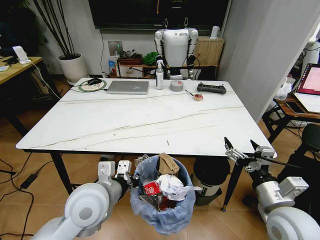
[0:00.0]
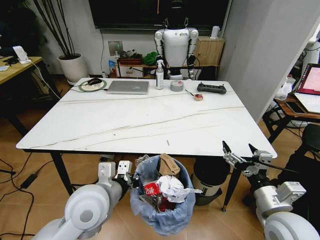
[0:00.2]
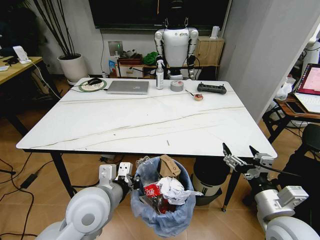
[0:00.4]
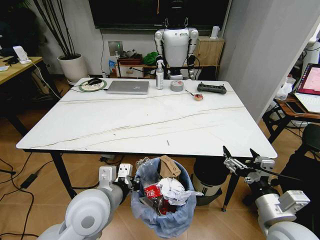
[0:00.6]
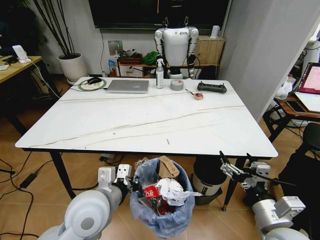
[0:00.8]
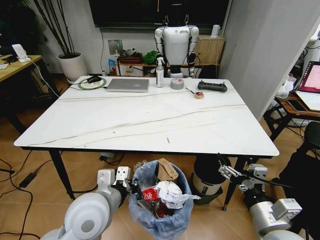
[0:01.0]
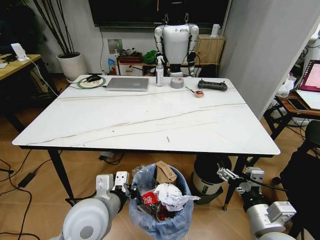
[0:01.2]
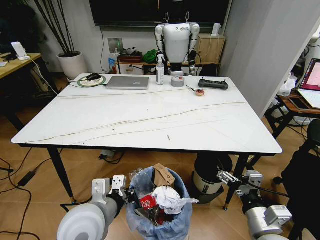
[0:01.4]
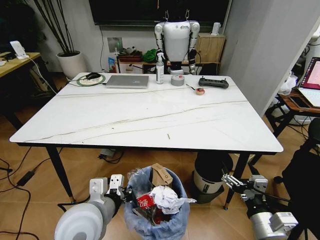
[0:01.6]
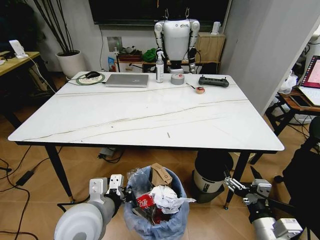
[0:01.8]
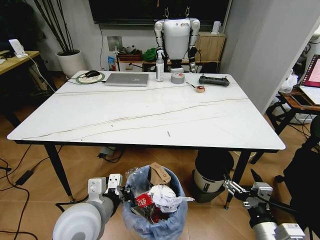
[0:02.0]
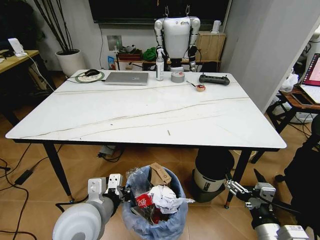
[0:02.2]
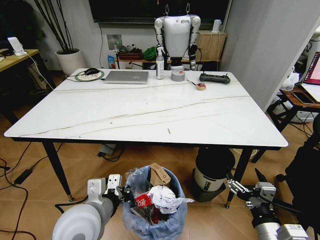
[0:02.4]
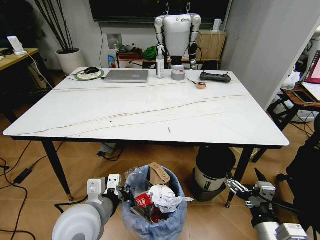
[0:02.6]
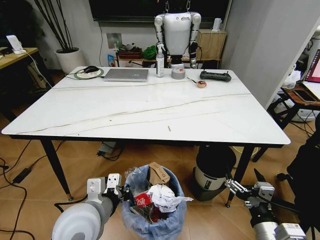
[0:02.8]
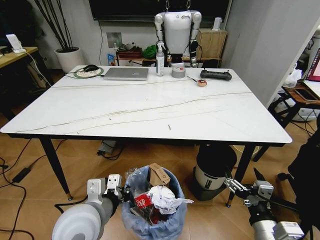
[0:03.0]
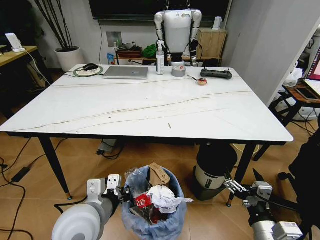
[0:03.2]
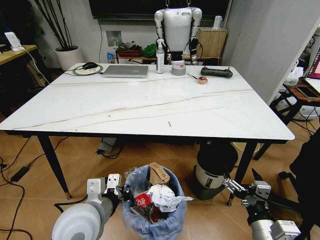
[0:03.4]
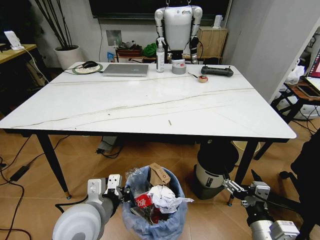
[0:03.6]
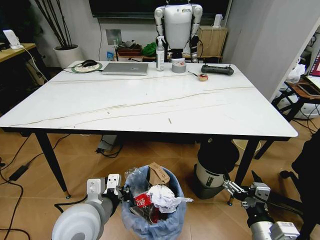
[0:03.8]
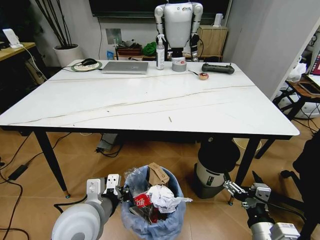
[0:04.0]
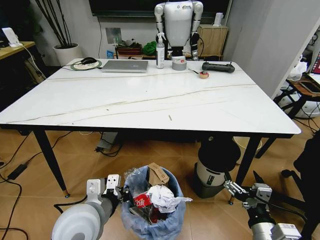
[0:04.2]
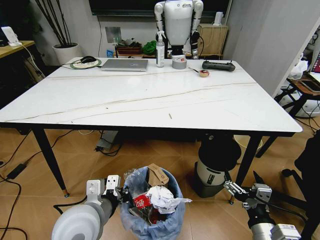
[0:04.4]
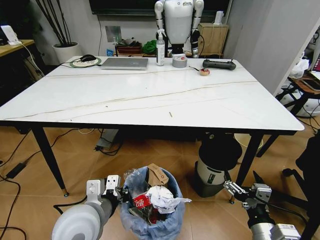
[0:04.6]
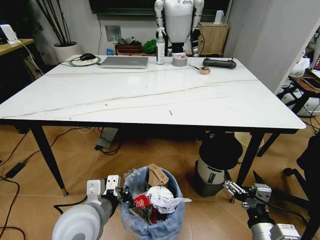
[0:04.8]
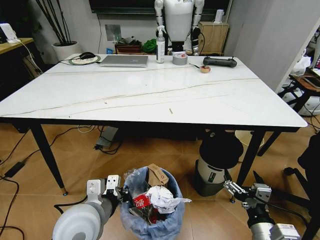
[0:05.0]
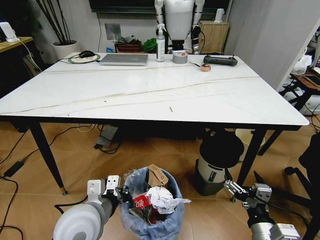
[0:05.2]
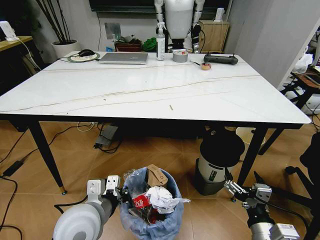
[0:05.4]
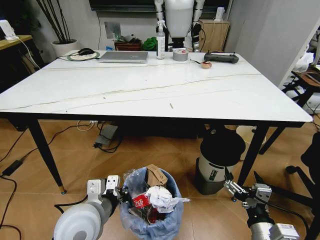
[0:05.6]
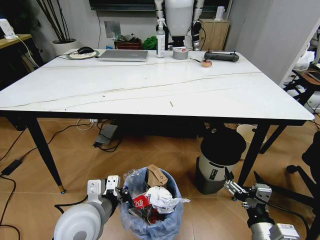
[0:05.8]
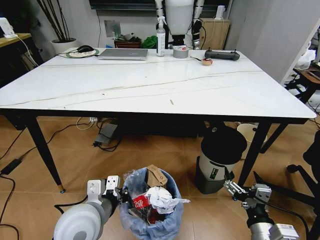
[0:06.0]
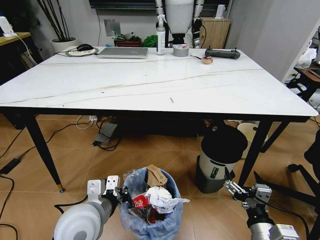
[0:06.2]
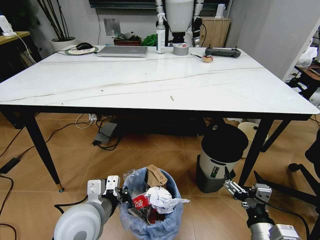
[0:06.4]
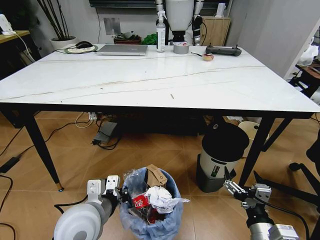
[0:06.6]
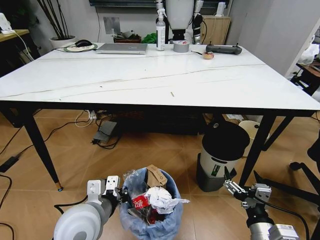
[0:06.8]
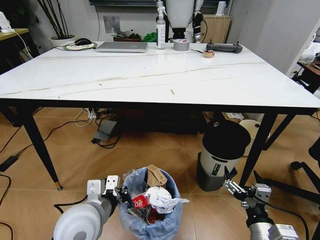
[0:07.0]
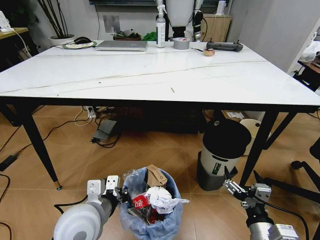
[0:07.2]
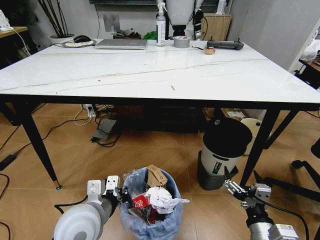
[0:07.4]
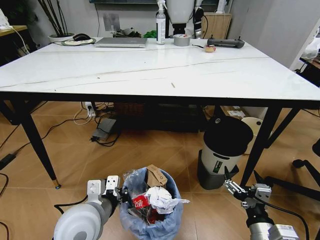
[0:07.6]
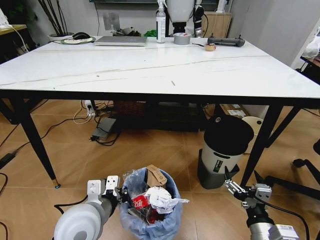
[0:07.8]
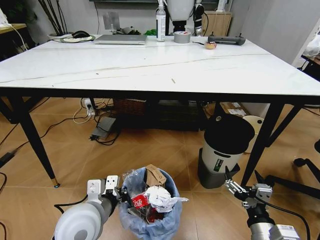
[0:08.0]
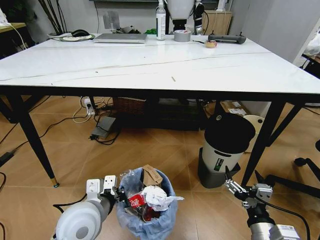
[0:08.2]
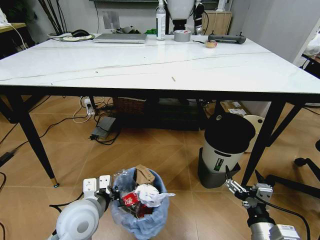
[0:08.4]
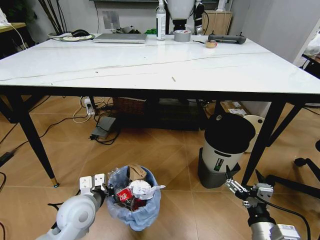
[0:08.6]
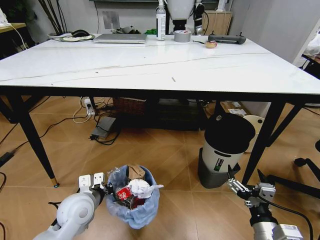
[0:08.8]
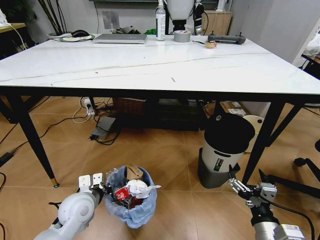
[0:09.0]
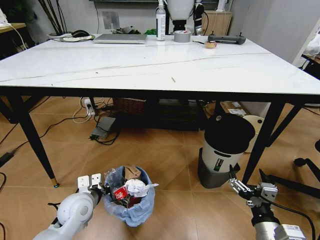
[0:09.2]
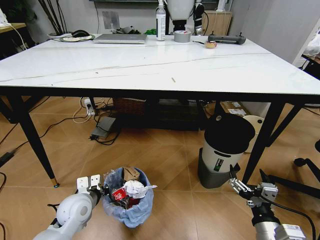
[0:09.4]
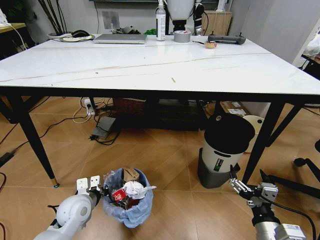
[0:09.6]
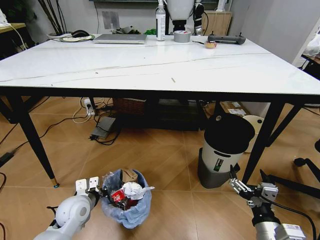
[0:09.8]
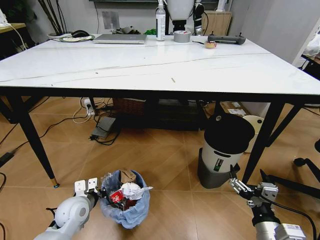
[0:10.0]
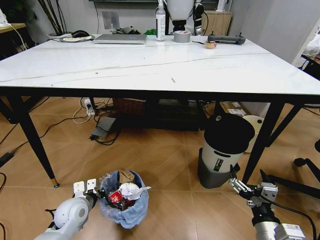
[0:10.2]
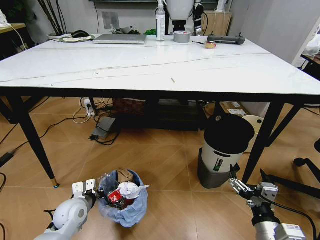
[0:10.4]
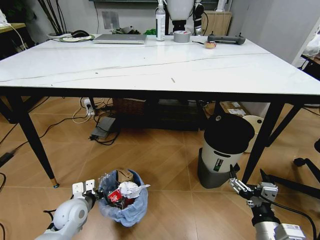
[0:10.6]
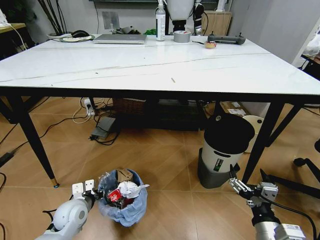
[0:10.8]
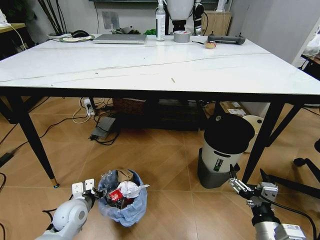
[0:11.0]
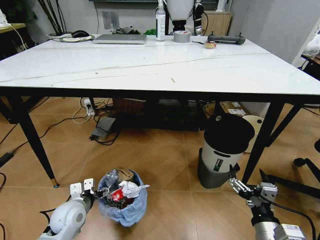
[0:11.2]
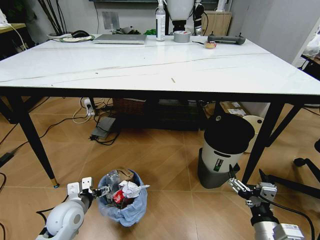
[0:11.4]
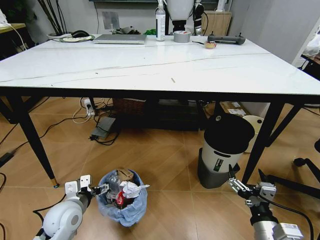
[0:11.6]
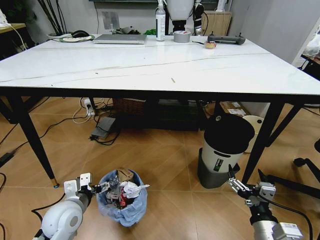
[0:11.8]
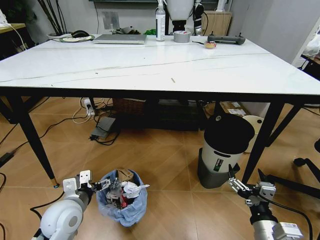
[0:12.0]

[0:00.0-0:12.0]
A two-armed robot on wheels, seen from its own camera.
Task of the whole recording: Pick up the trash bin and place the trash from the table into it.
0:00.0 to 0:01.6: The right gripper moves downward and backward, about 10 cm.
0:07.6 to 0:09.0: The left gripper heads downward, to the left and forward, covering some 15 cm.
0:09.0 to 0:10.4: The left gripper is displaced downward by about 5 cm.
0:10.4 to 0:12.0: The left gripper shifts some 5 cm upward, and opens up.

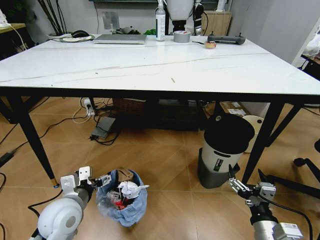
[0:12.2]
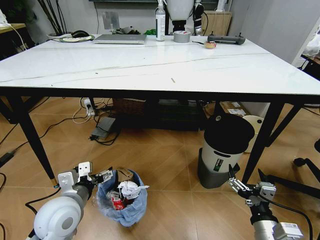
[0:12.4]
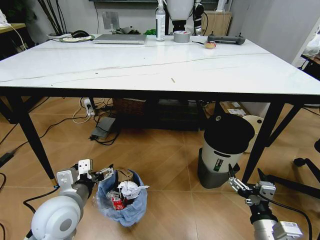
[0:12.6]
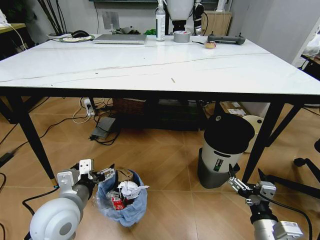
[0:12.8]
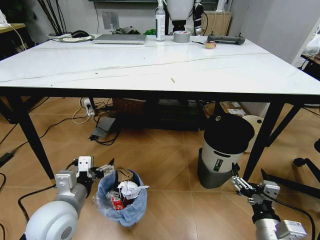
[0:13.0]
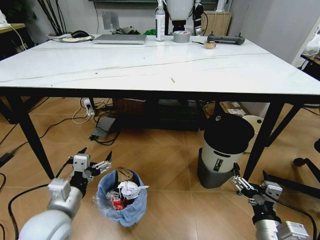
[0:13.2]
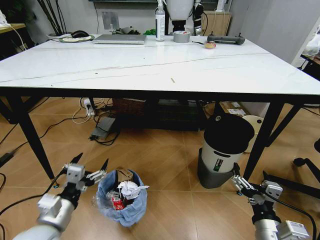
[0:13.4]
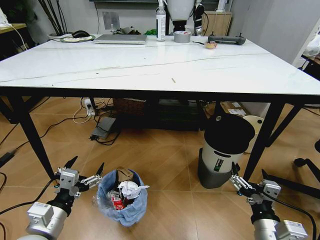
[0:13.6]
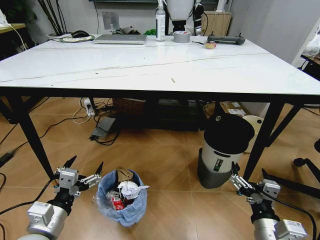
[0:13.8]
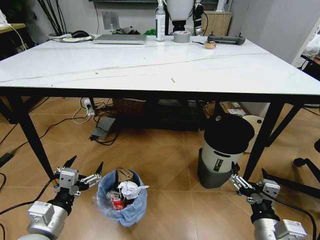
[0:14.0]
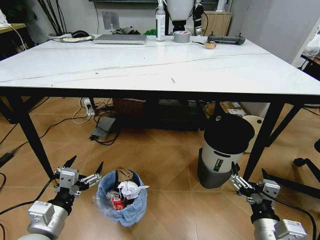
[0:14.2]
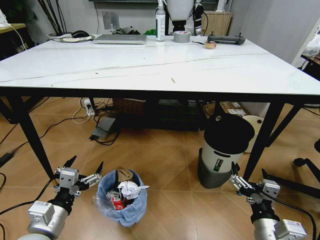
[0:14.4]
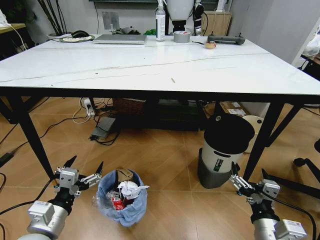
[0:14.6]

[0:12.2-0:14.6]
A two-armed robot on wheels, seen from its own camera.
Task of the whole recording: Pick up the trash bin and place the trash from the table into it.
0:12.2 to 0:13.4: The left gripper moves backward, about 5 cm.
0:13.4 to 0:14.6: The grippers make only small movements.
